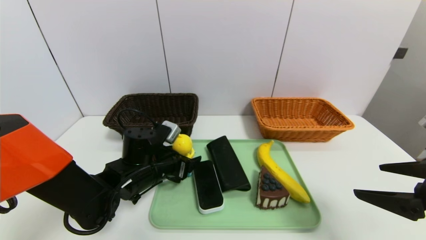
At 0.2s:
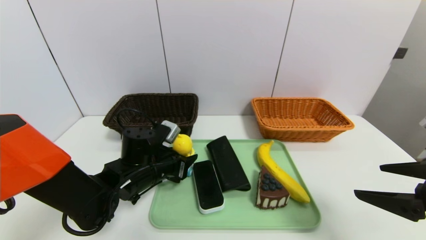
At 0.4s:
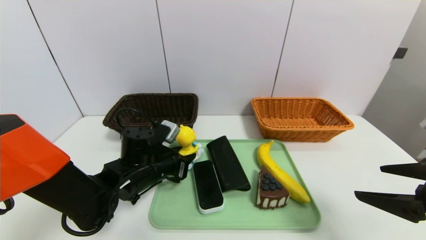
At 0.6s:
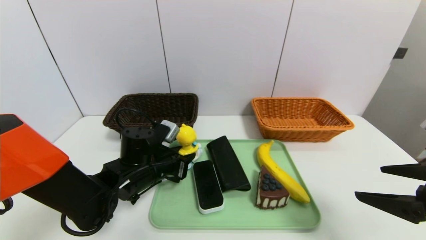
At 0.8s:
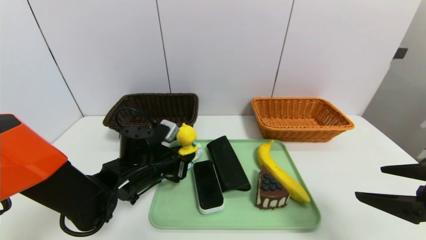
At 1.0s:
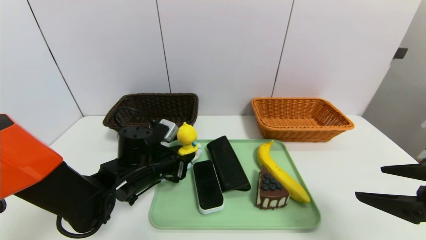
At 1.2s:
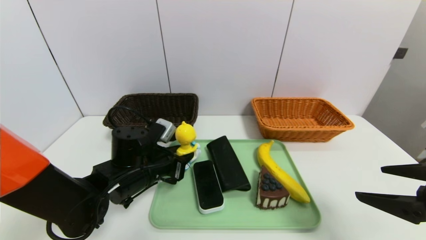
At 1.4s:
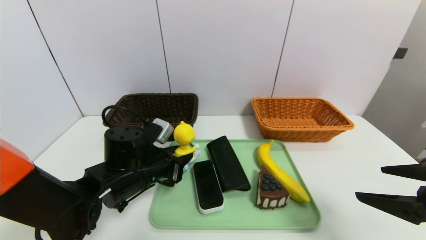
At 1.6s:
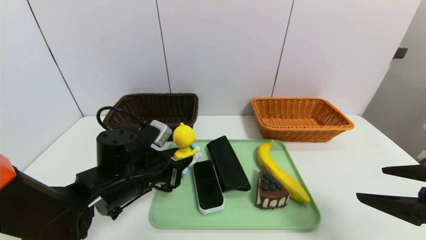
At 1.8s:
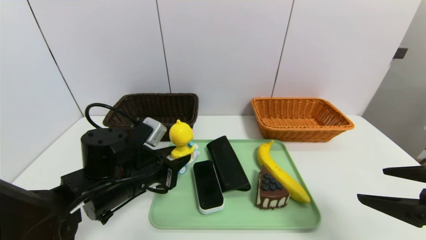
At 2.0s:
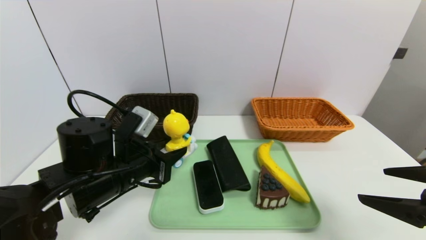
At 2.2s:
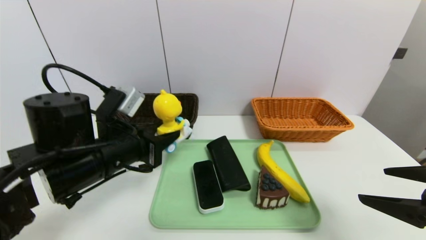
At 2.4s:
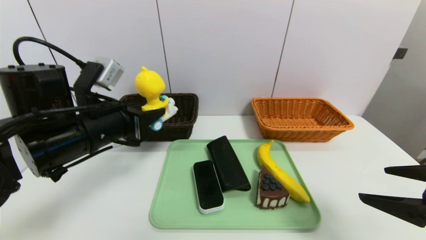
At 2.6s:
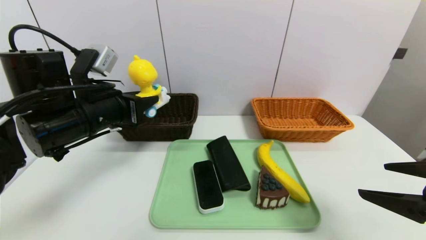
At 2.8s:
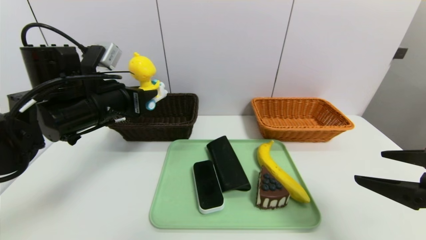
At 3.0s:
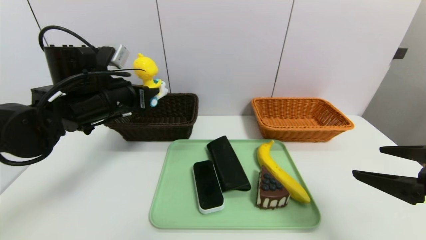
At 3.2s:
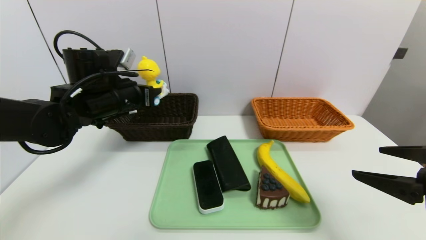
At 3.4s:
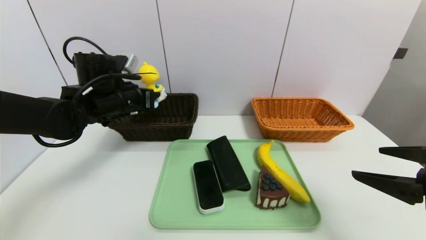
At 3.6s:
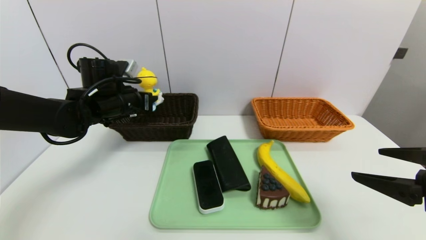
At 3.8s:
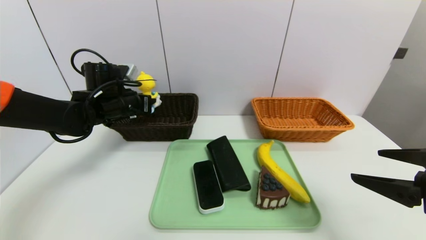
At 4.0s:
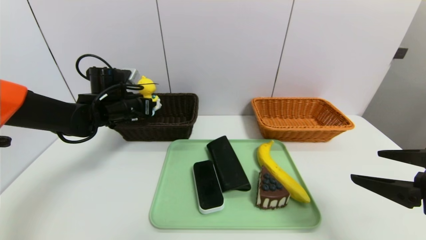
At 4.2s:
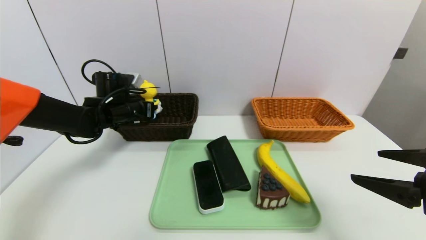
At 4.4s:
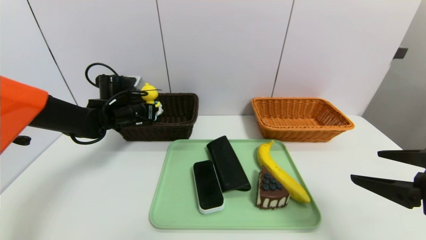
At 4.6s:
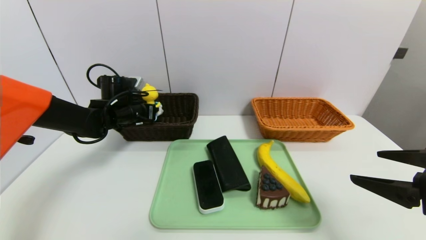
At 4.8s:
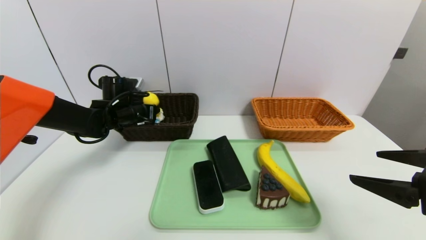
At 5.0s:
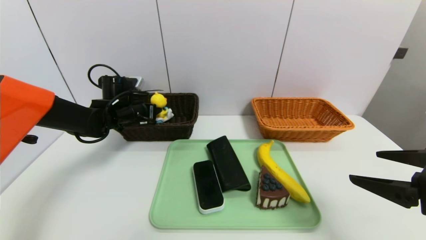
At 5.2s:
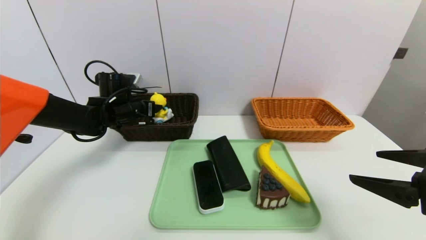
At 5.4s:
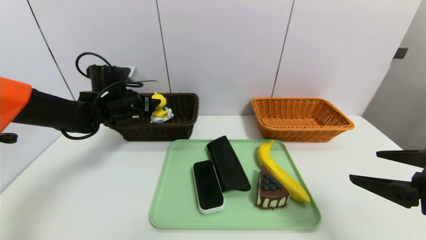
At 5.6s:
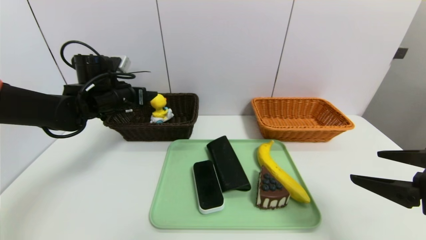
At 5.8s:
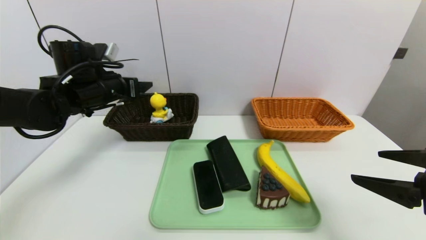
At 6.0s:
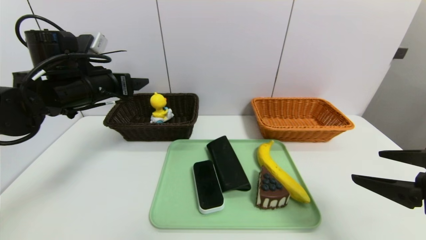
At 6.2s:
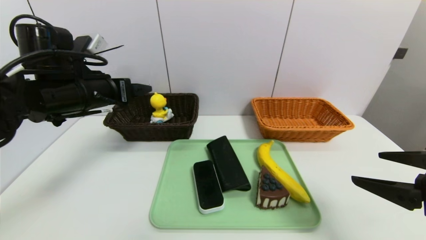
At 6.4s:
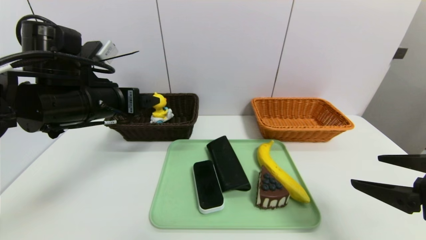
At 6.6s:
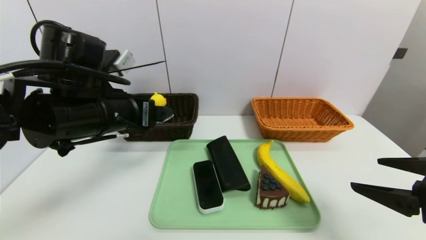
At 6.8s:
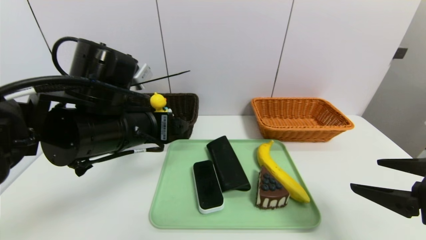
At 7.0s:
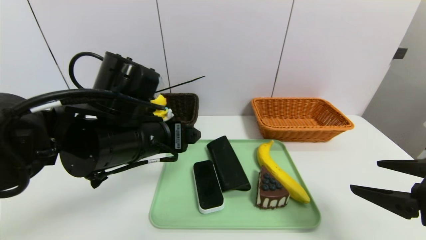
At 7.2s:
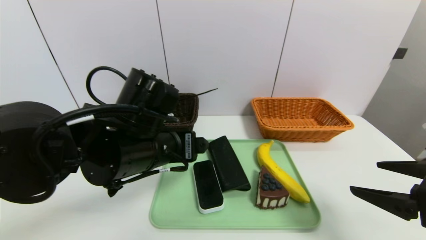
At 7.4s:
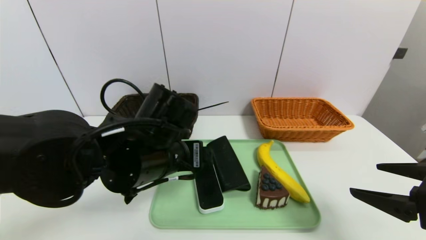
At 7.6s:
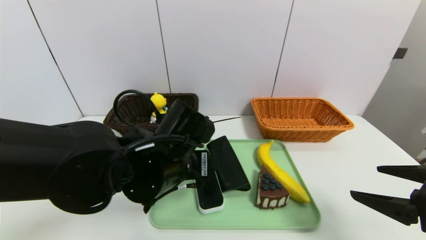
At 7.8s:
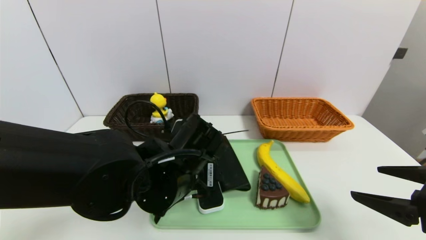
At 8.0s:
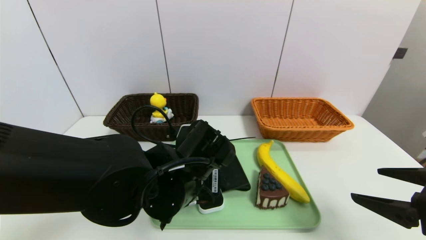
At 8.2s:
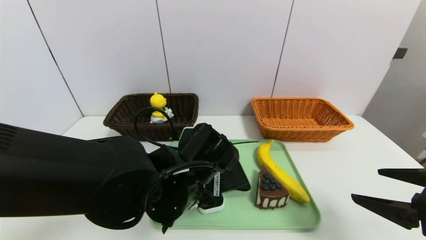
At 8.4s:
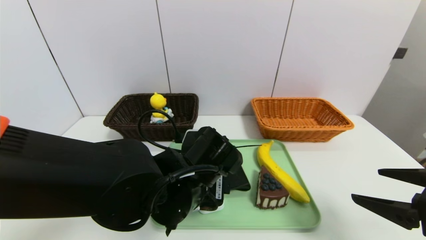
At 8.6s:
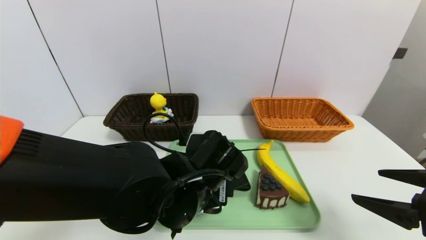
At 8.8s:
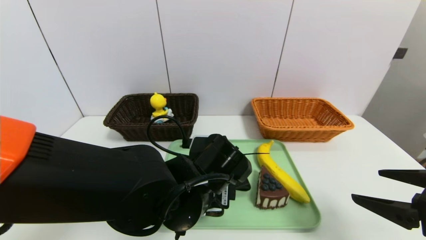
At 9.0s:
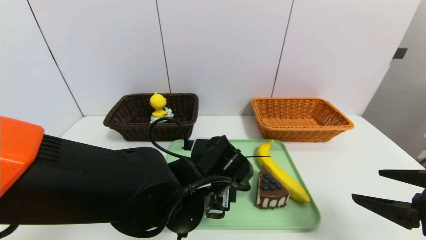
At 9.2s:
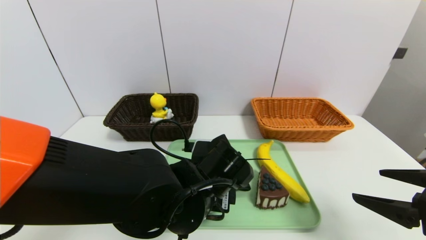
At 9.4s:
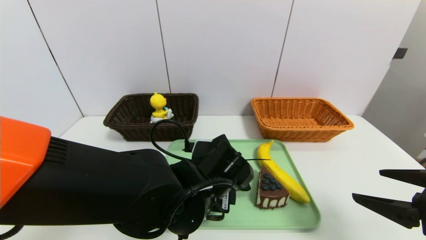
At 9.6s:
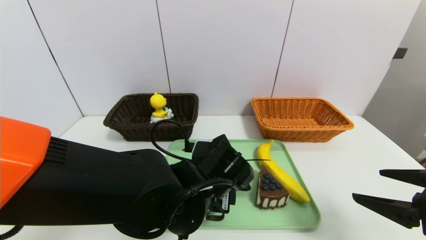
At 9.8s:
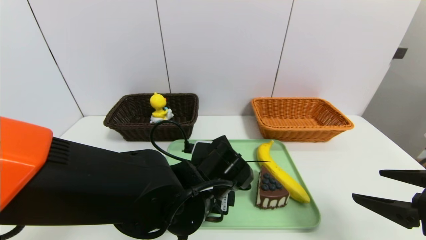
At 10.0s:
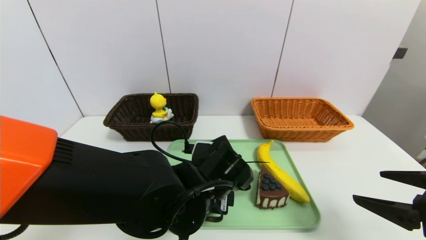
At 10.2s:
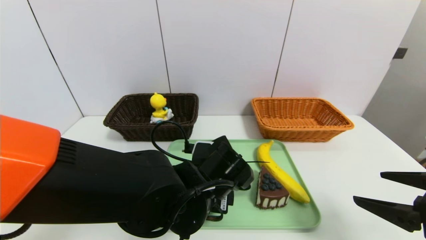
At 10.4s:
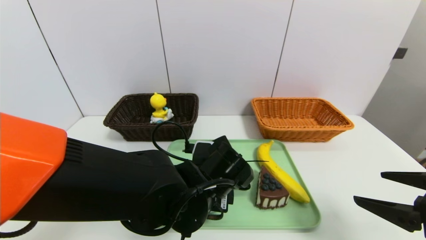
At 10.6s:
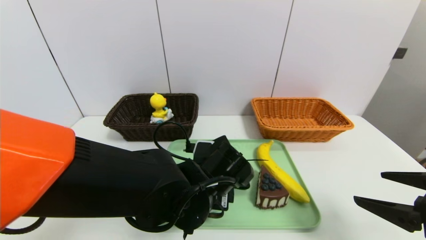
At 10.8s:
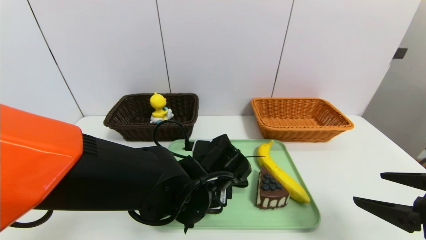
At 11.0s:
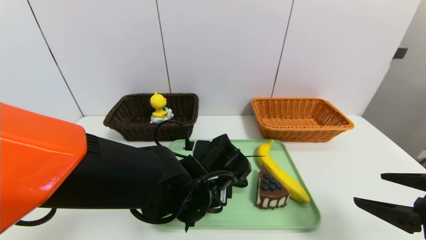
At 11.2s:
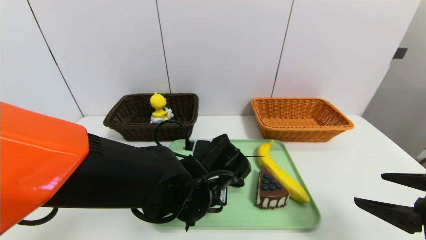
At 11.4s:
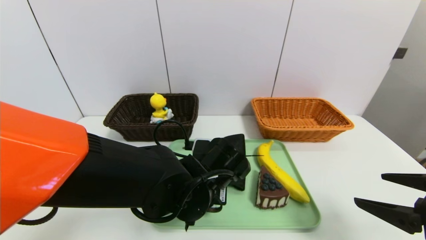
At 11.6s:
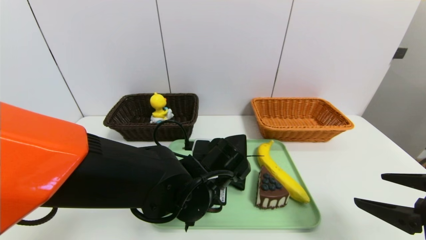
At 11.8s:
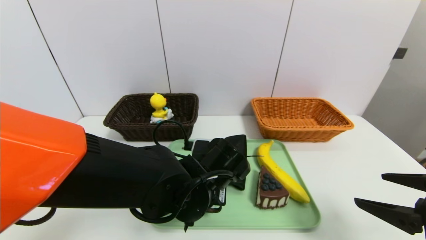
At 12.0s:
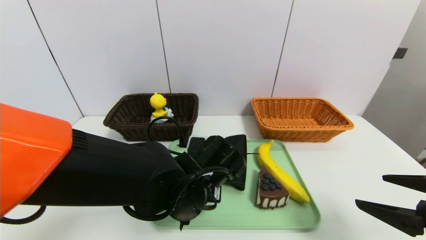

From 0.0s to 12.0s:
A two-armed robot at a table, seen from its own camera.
Task of the whole recording: place the food in the right basket with the right gripper, and place the non food items in the left basket with the left gripper.
Step, from 0.0s to 5.0s: Grasp the duck toys and put it in the left basket.
From 0.0s to 1.6s: The left gripper closes.
From 1.6s to 3.0s: The left gripper travels upward, forward and to the left by approximately 15 cm.
From 3.0s to 4.4s: The left gripper goes about 15 cm forward and downward.
From 4.4s to 6.0s: The left gripper travels upward and backward by roughly 15 cm, and opens its fingers.
From 6.0s to 7.6s: The left gripper is displaced to the right, backward and downward by some 20 cm.
From 7.6s to 9.0s: The left gripper moves approximately 5 cm.
From 9.0s to 10.4s: The two grippers keep their place.
From 10.4s to 12.0s: The left gripper closes.

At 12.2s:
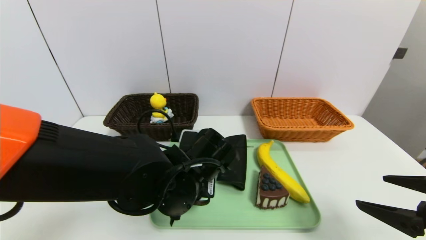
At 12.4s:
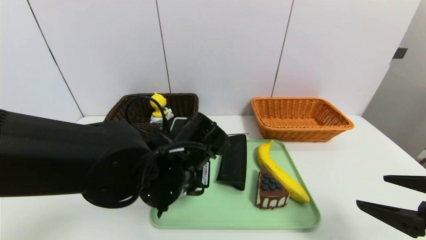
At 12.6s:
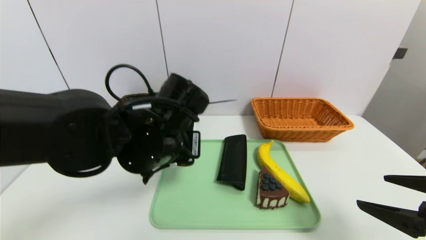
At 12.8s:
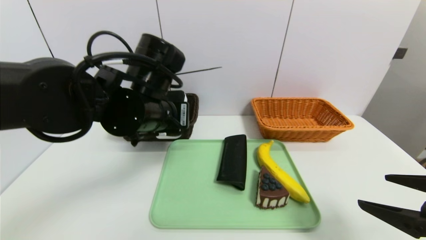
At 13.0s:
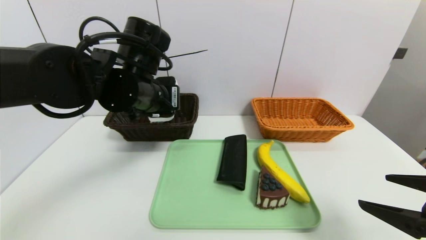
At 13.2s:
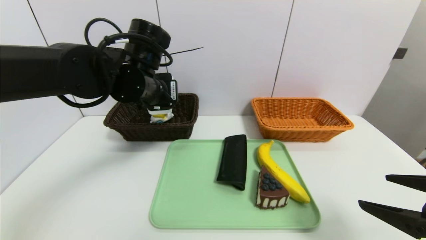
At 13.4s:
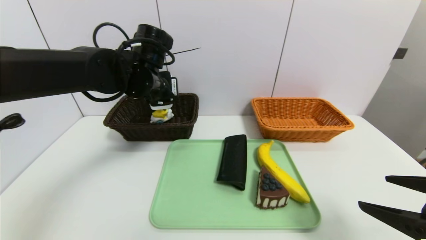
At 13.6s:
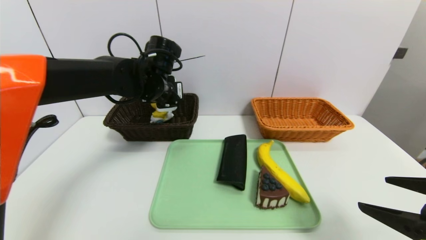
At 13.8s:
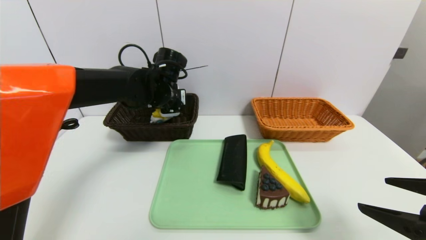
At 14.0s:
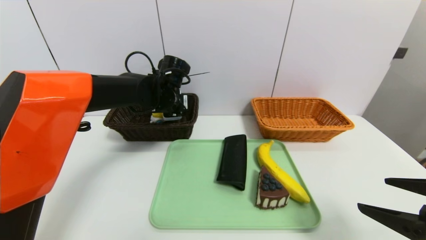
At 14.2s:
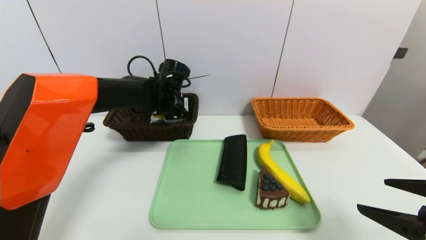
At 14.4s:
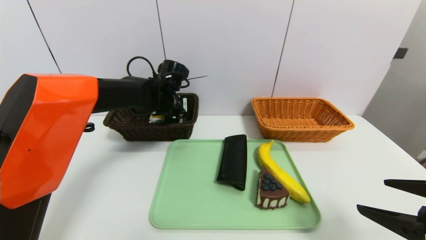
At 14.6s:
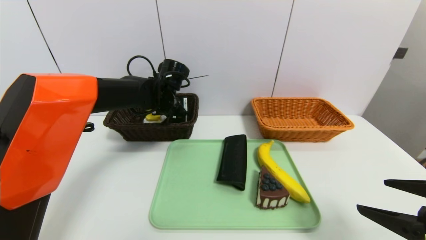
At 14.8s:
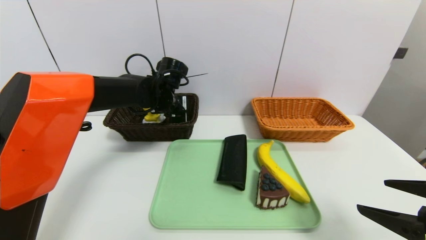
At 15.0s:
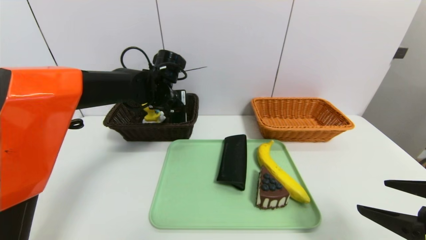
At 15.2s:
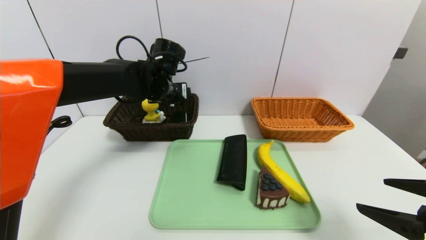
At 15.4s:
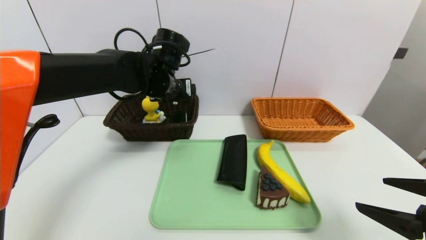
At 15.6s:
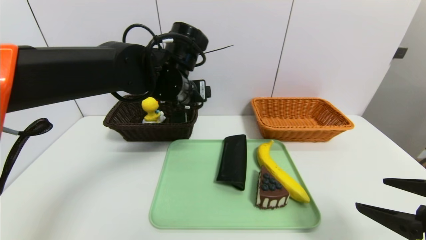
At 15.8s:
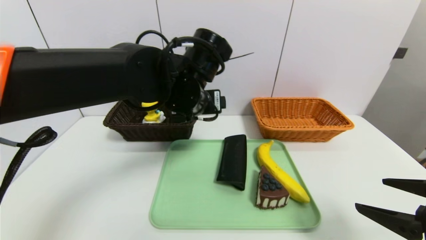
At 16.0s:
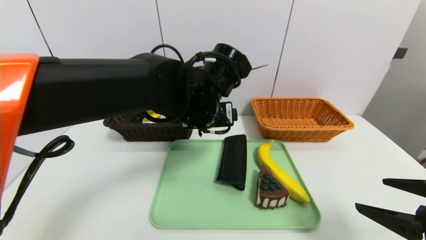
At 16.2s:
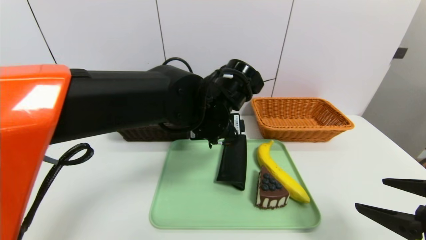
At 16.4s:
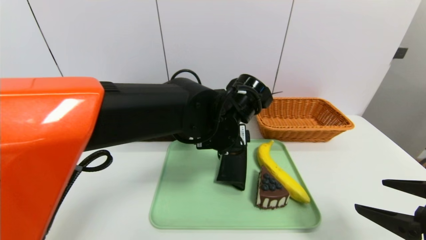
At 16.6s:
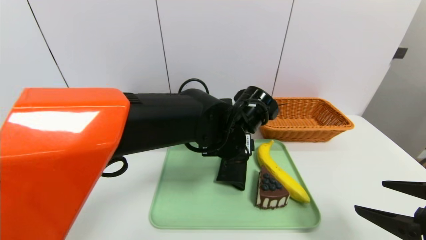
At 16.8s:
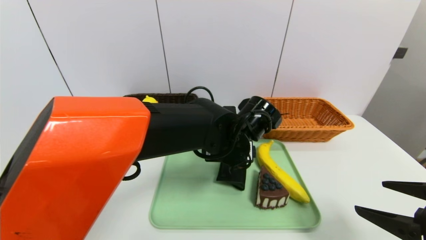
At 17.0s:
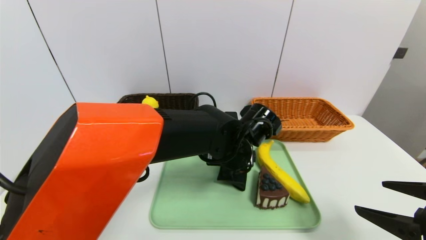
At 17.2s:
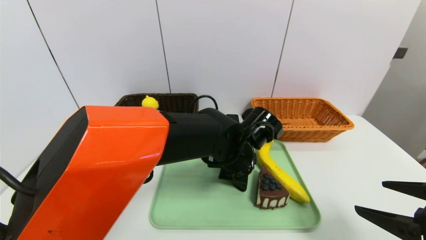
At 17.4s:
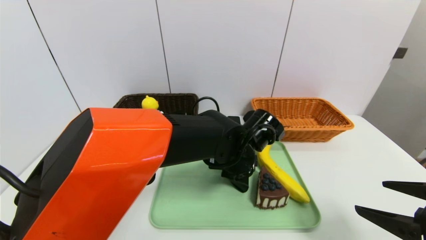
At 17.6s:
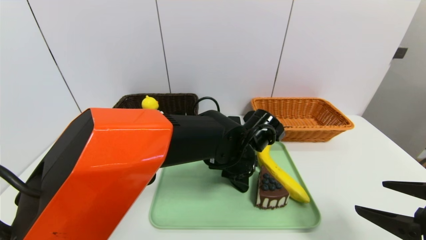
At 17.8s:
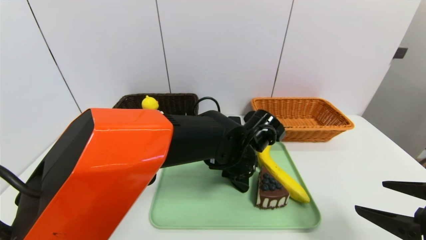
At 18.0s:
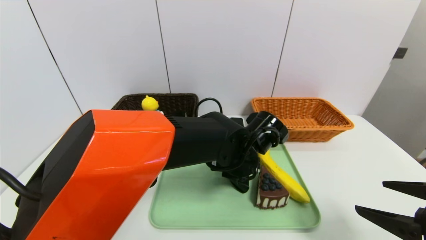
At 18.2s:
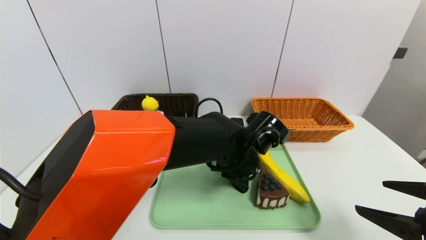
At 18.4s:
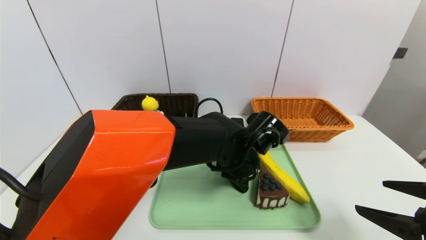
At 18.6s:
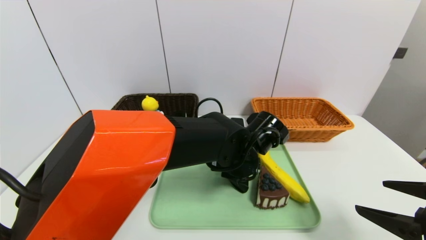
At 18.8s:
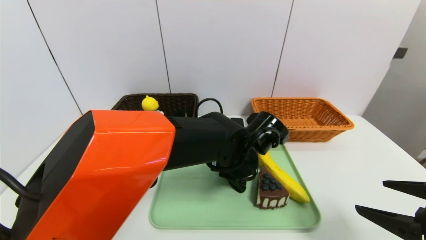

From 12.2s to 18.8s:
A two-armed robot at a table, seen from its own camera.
Task of the whole recording: place the food in the right basket with the right gripper, and place the non food items in the left basket with the left gripper.
Step, from 12.2s to 14.8s: Grasp the white eraser and put it in the left basket.
From 12.2s to 13.8s: The left gripper moves forward, roughly 20 cm.
From 13.8s to 15.4s: The left gripper moves roughly 5 cm, and opens its fingers.
From 15.4s to 17.2s: The left gripper heads to the right, downward and backward, covering about 20 cm.
From 17.2s to 18.8s: Both grippers stay put.
